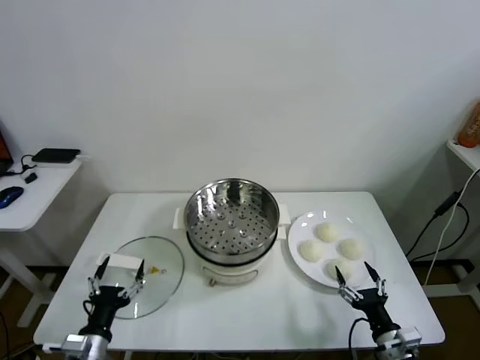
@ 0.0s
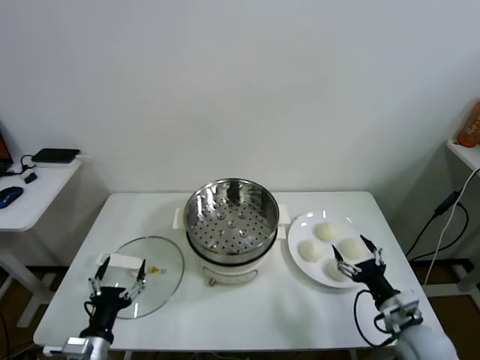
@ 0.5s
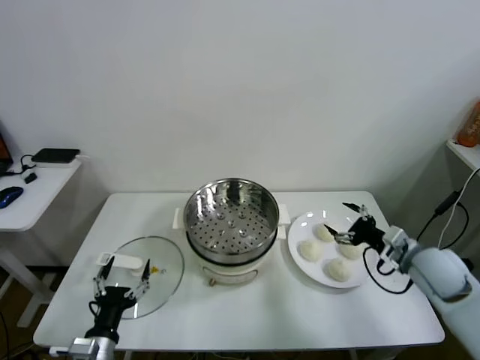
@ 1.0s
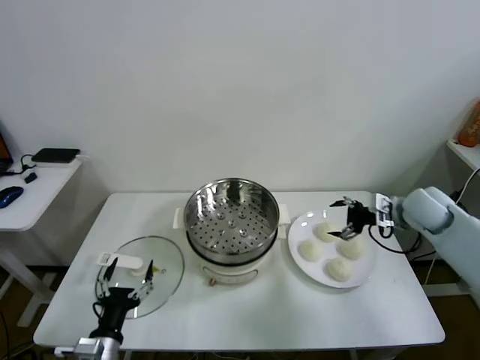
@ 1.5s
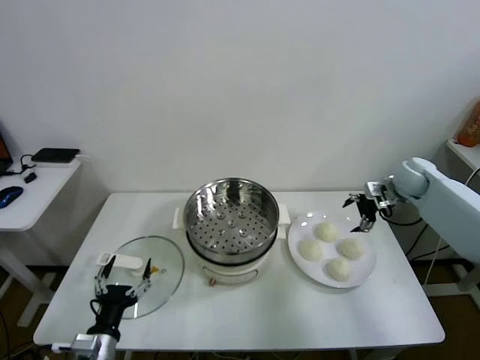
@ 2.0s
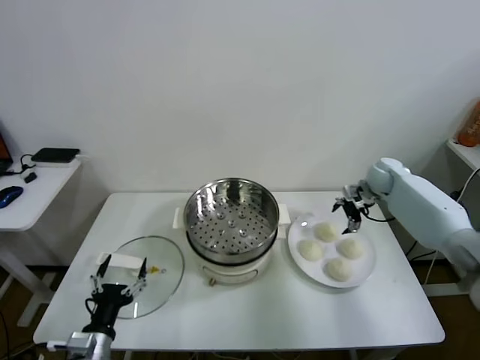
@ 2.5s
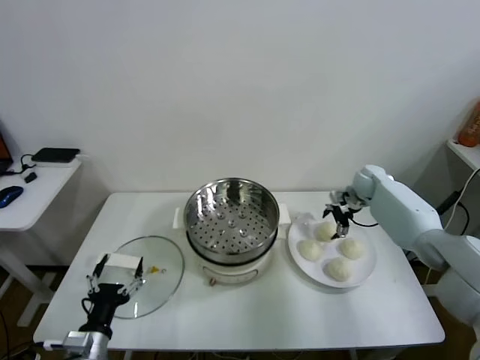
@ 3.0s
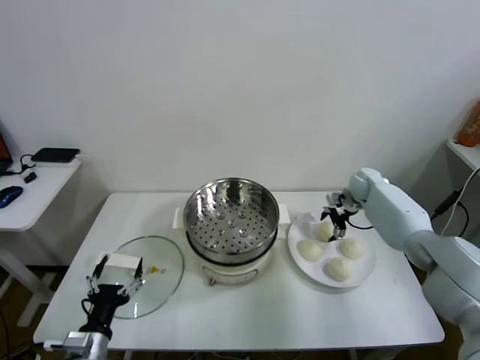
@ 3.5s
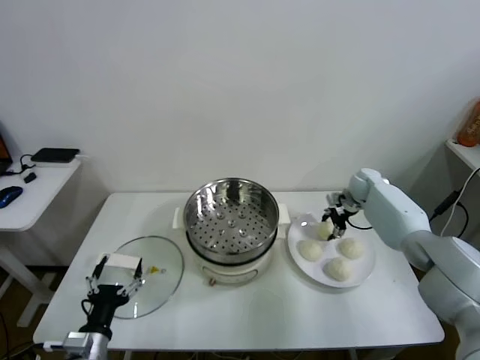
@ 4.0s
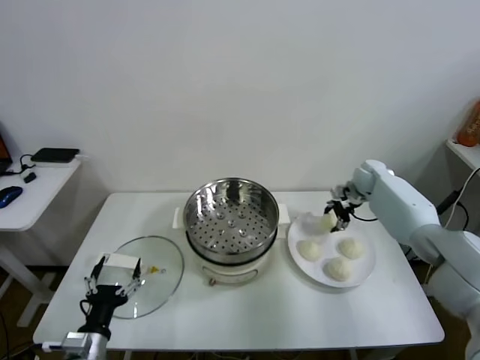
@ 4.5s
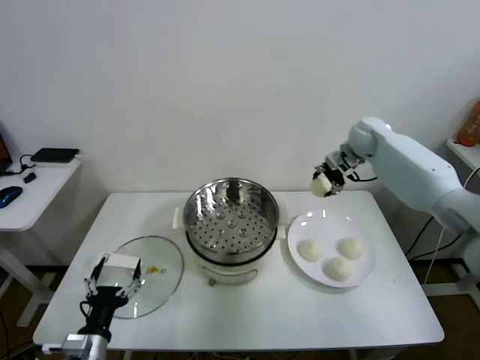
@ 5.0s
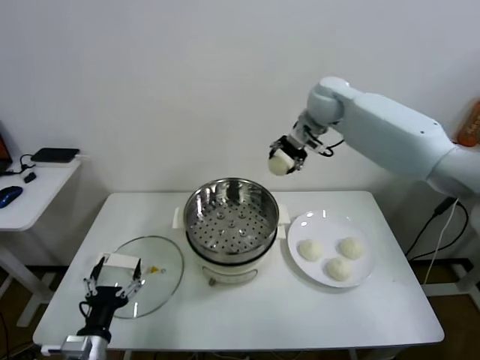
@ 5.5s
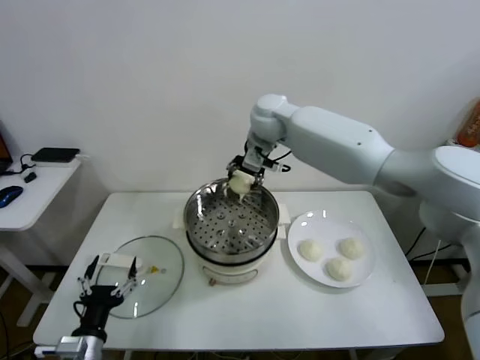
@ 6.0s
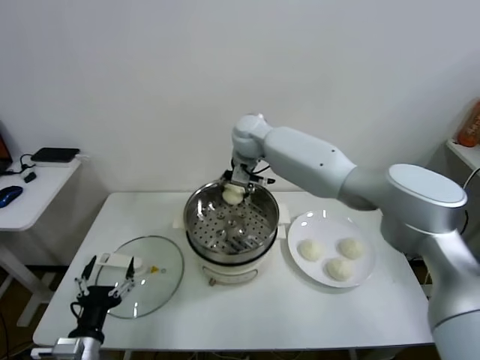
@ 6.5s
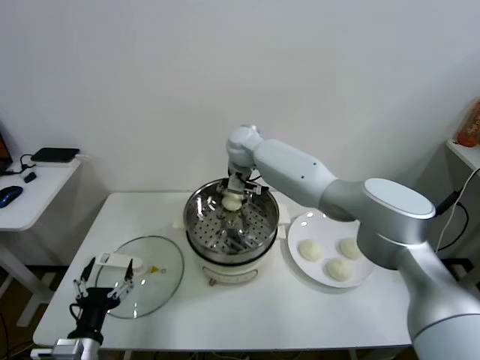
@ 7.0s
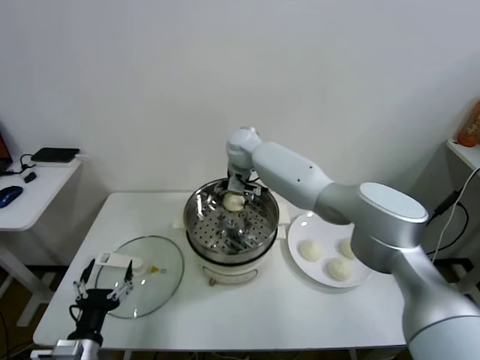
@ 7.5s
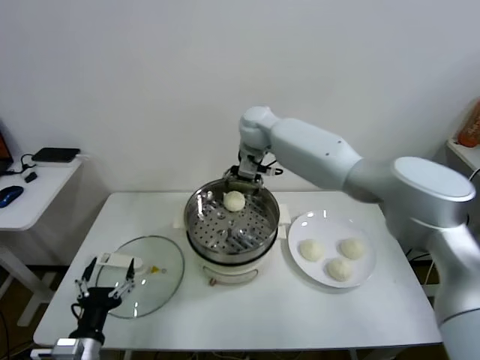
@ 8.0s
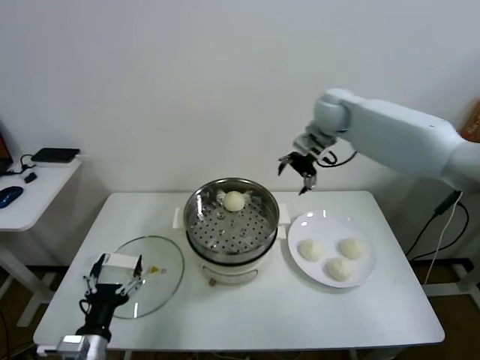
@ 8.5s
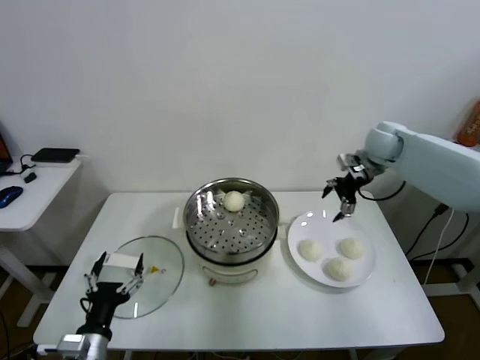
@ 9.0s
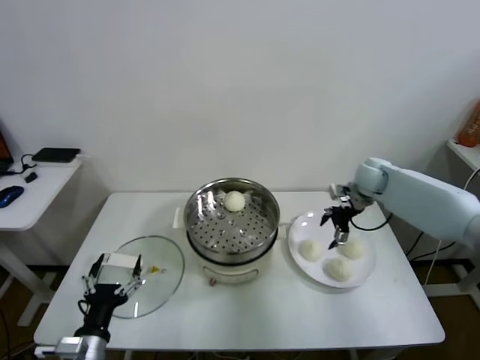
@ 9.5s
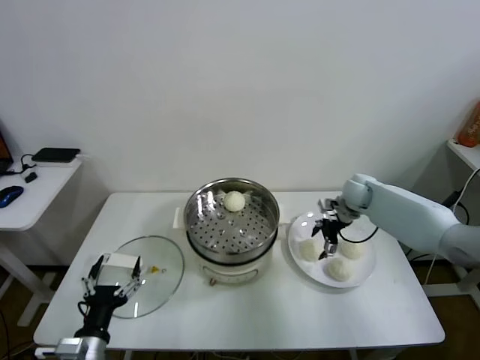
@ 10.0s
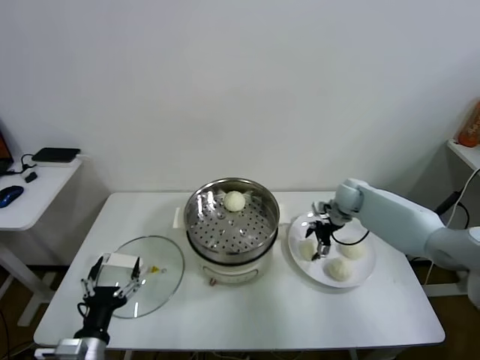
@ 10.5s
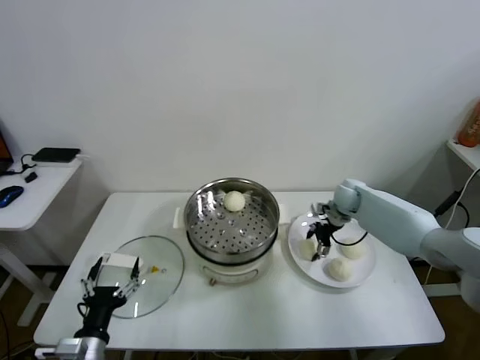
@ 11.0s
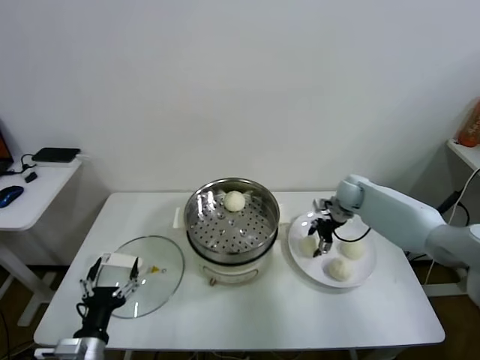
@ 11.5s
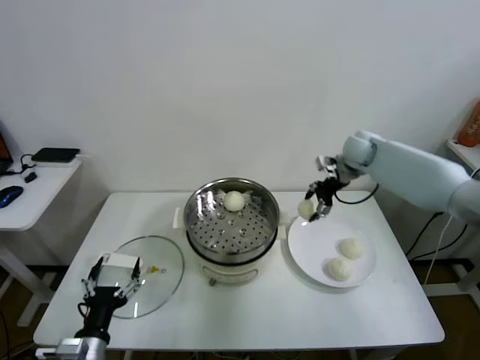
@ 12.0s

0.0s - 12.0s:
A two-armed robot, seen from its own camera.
Task of the whole recording: take steamed baozi put them in steamer.
Step, 0.0s - 4.0s: Grasp the baozi in the plate with right gripper.
Step, 4.5s - 7.5s: Place the baozi on the steamer with right gripper.
Step, 8.0s - 11.0s: Grasp the baozi in the plate with right gripper.
2.0s - 4.0s: The right gripper travels downward, to the left and forward by about 10 cm, and closes.
4.0s - 6.0s: The right gripper goes some 40 cm to the left and upward.
6.0s - 8.0s: The right gripper moves approximately 10 cm downward and comes back, and opens up.
8.0s - 10.0s: The right gripper shifts about 35 cm to the right and downward.
10.0s - 12.0s: The right gripper heads upward, covering about 15 cm, and closes up.

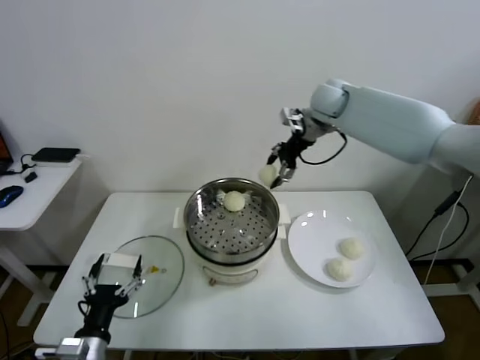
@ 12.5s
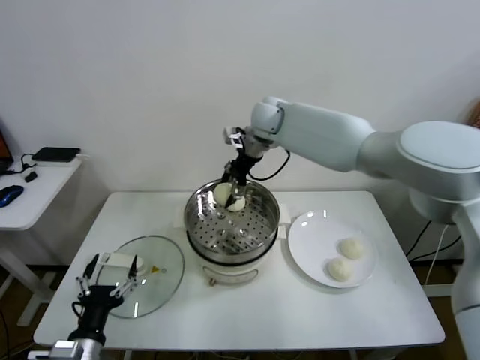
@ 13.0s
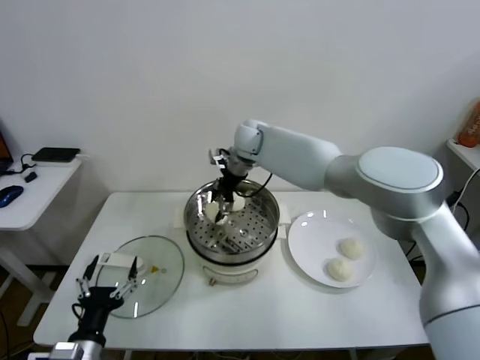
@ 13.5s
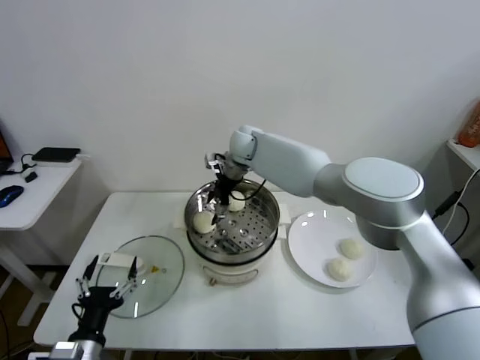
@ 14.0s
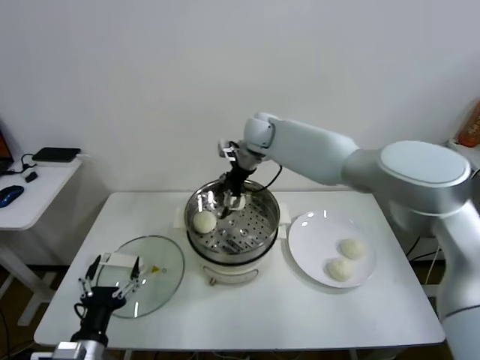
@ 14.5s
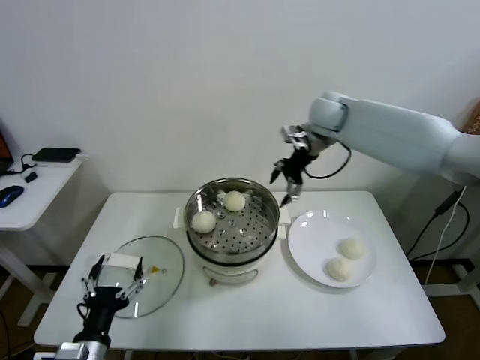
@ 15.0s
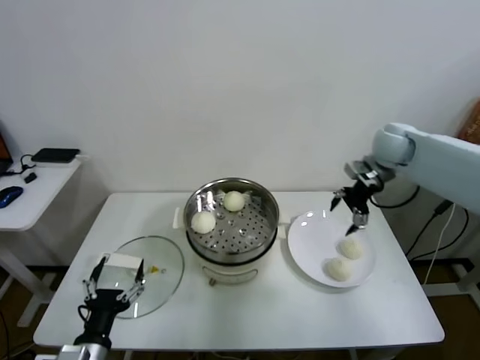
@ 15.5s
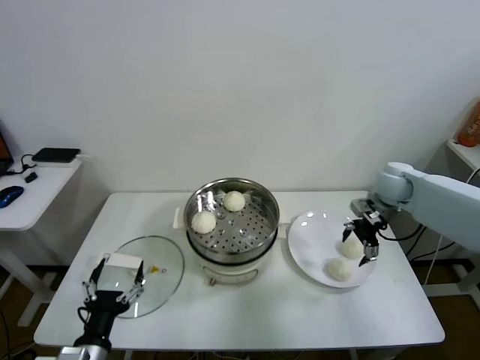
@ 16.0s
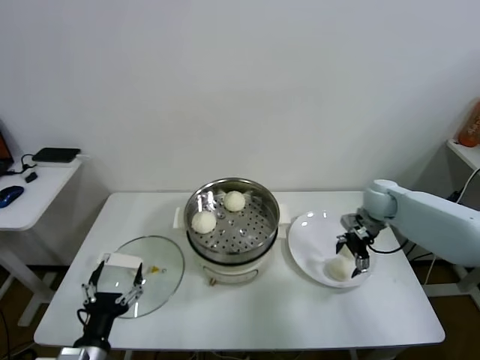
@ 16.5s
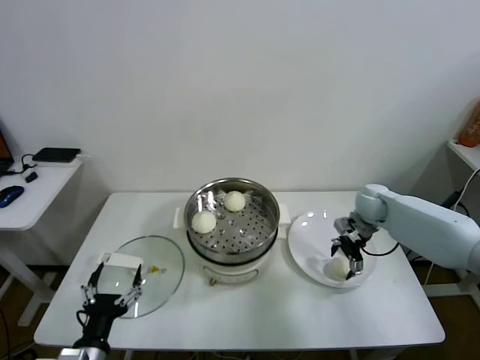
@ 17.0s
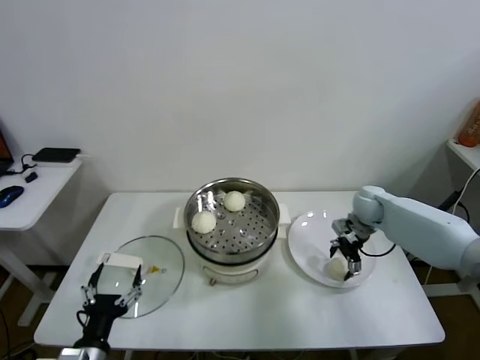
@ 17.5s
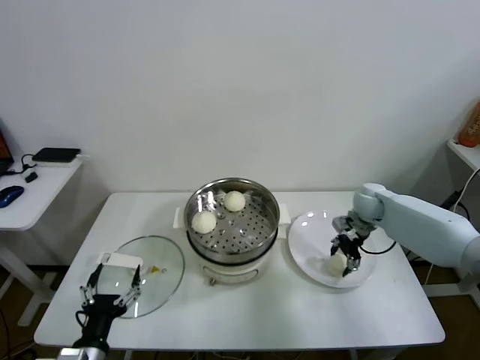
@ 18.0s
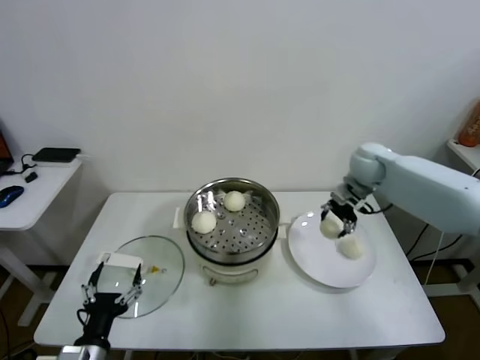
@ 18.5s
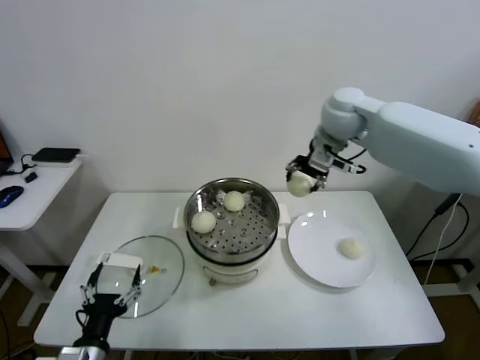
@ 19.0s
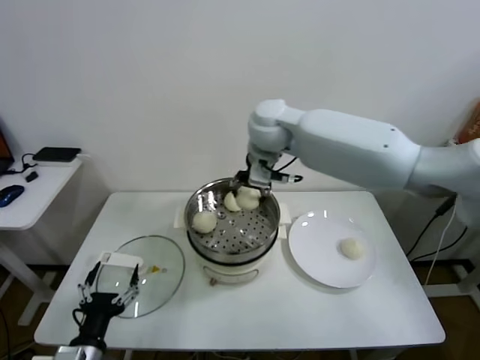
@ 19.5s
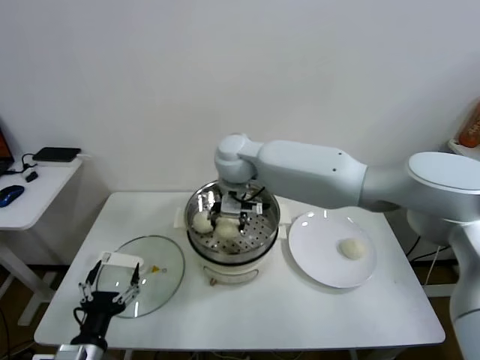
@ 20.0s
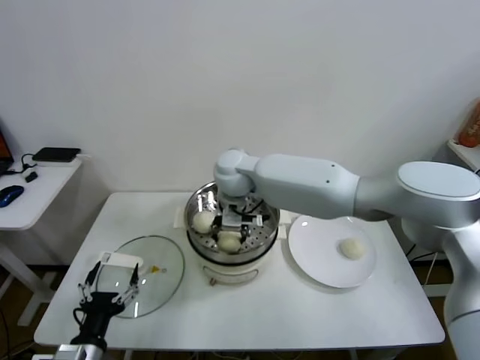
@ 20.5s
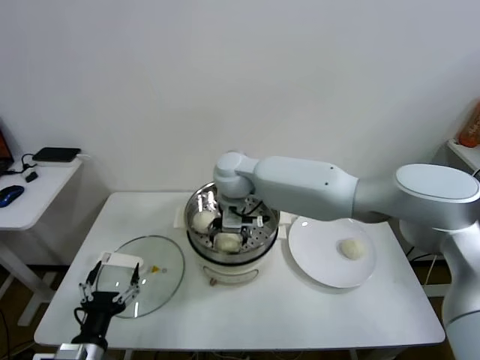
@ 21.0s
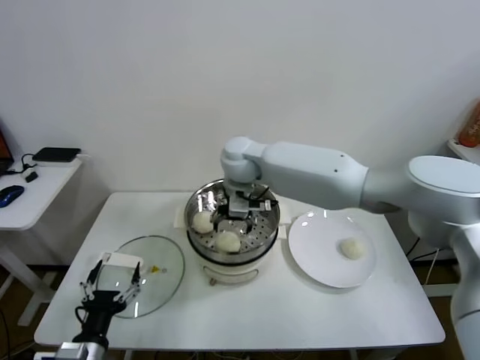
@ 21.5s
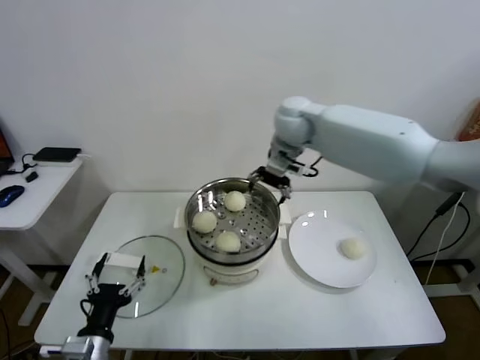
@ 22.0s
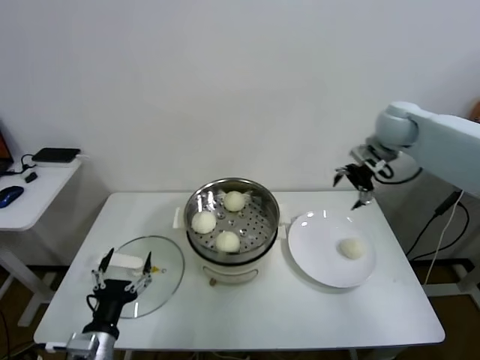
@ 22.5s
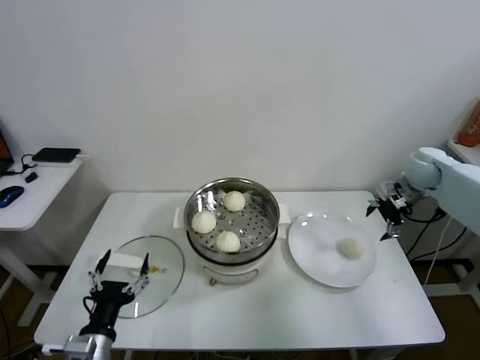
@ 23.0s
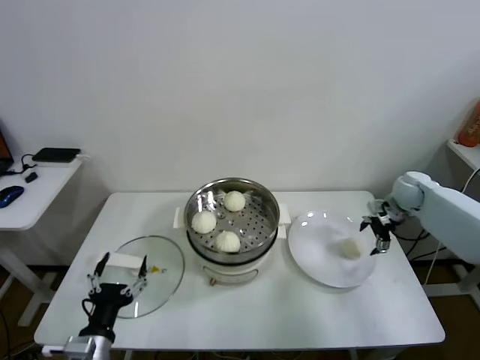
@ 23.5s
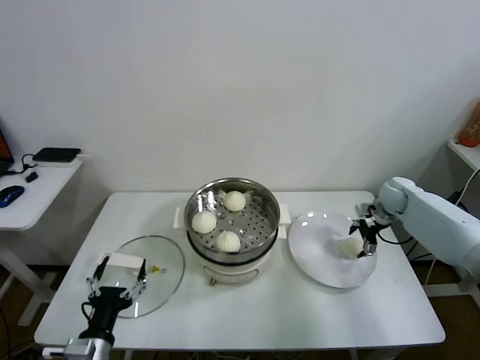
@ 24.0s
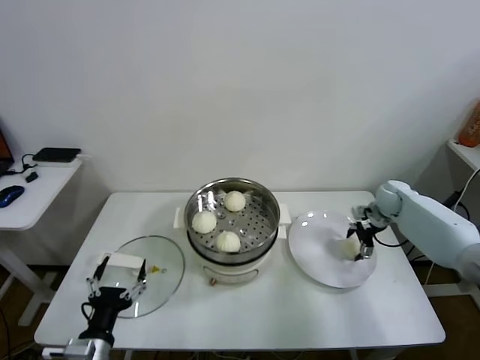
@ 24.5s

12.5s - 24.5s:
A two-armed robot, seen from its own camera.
Task of the whole recording: take steamed baozi put them in steamer.
Step, 14.0s - 18.0s: Grasp the baozi in the plate with right gripper.
Step, 18.5s - 21.0s: Place the baozi on the steamer with right gripper.
12.5s - 14.5s: The right gripper shifts roughly 15 cm to the left and downward, and opens.
14.5s - 16.5s: The right gripper goes about 35 cm to the right and downward.
16.5s - 18.5s: The right gripper is displaced upward and to the left by some 10 cm, and closes.
18.5s - 20.5s: The right gripper goes roughly 30 cm to the left.
20.5s - 22.5s: The right gripper heads to the right, covering about 35 cm, and opens up.
22.5s - 24.5s: The right gripper shifts approximately 25 cm downward.

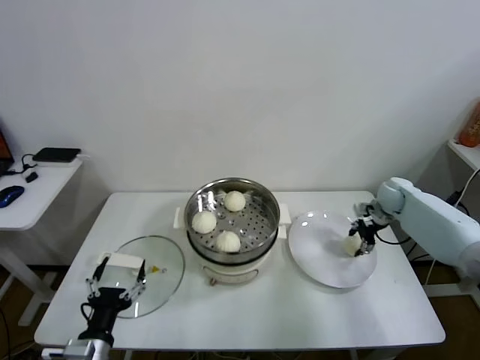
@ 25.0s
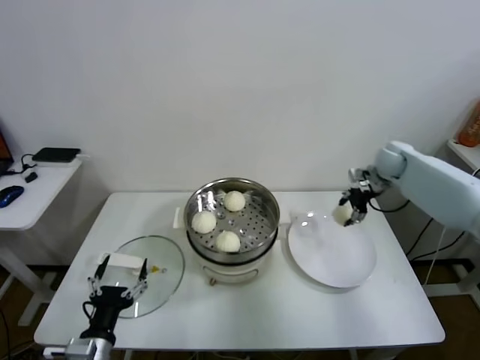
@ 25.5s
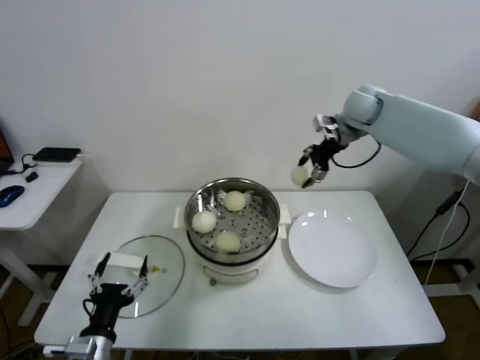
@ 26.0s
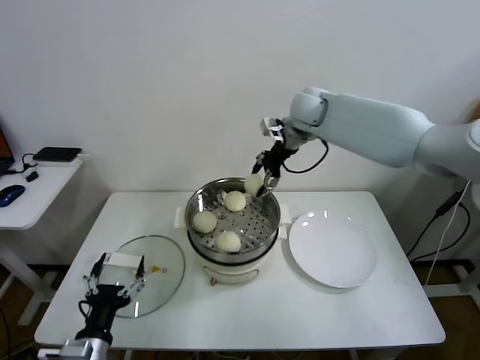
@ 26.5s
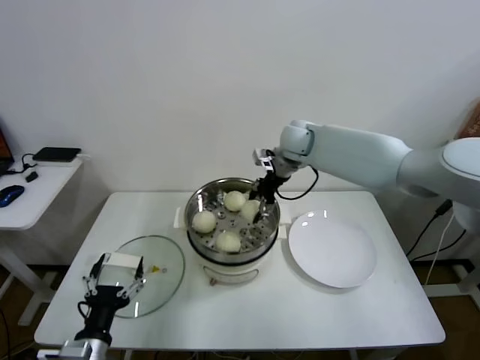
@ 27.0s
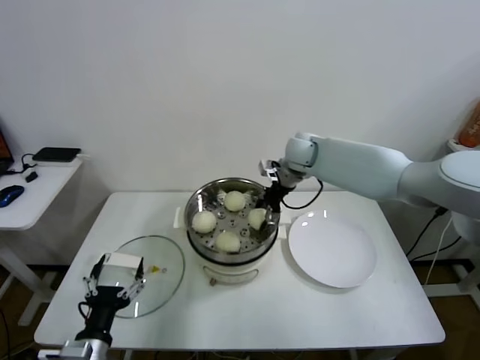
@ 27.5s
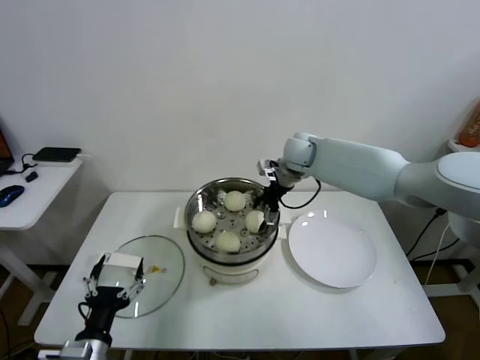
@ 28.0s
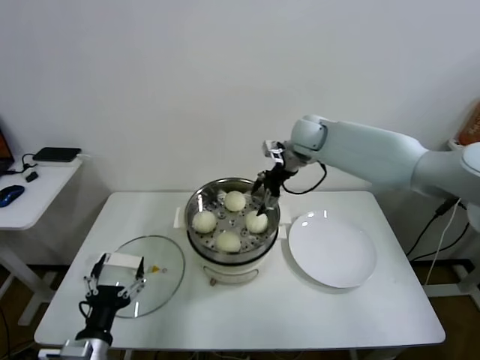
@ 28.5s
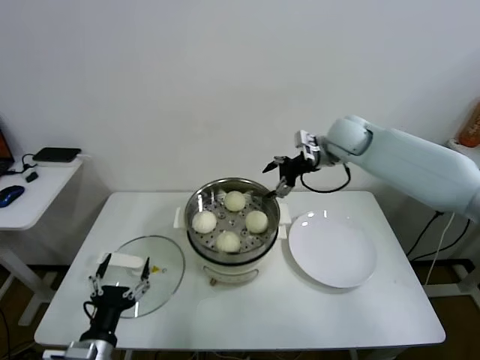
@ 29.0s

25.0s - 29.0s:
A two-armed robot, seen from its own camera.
Task of the whole recording: take steamed baozi put them in steamer.
Step, 25.0s - 27.5s: Place the baozi on the steamer with right gripper.
25.0s - 27.0s: The right gripper travels to the left and upward by about 35 cm.
27.0s - 29.0s: The right gripper moves to the right, approximately 10 cm, and opens its fingers.
